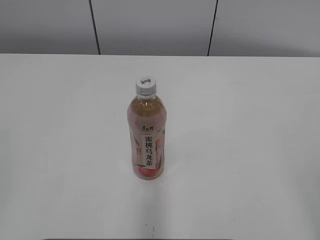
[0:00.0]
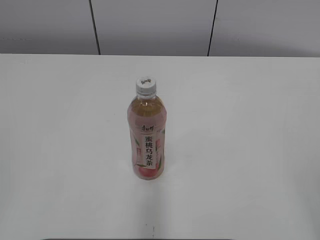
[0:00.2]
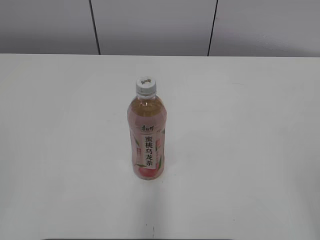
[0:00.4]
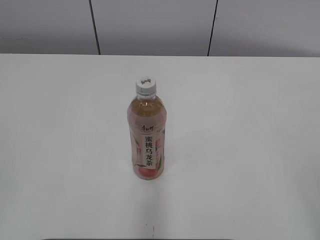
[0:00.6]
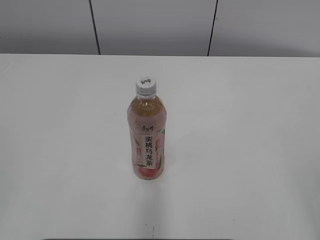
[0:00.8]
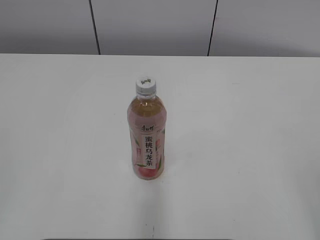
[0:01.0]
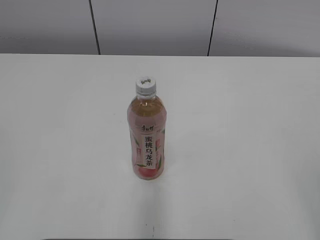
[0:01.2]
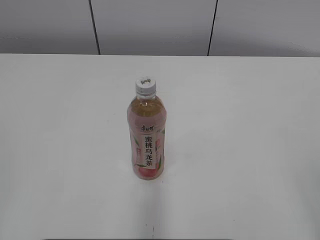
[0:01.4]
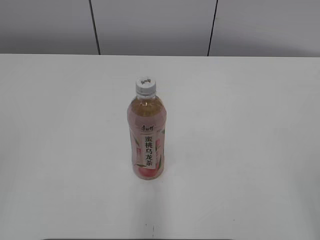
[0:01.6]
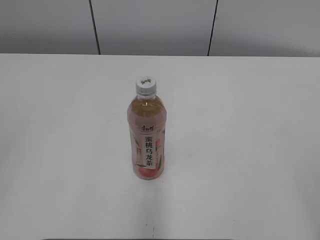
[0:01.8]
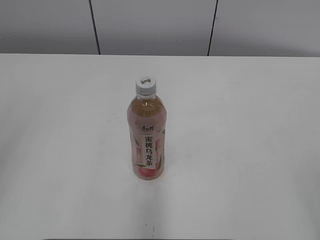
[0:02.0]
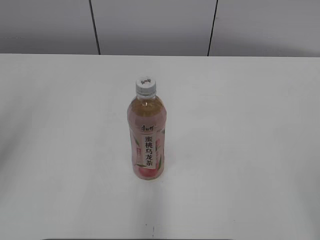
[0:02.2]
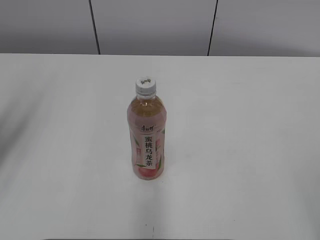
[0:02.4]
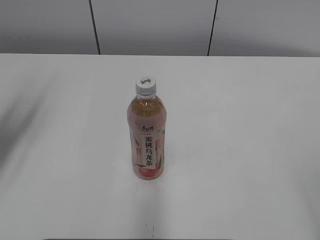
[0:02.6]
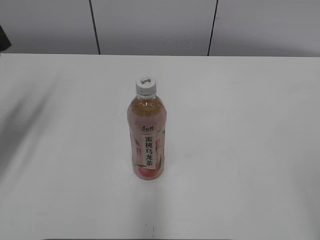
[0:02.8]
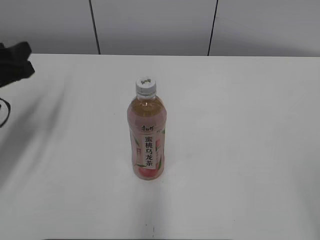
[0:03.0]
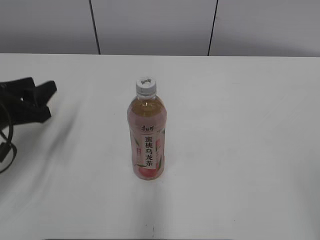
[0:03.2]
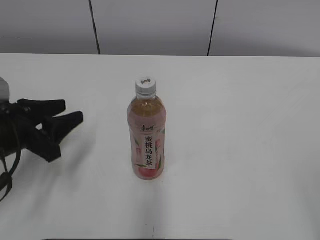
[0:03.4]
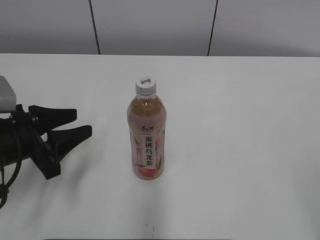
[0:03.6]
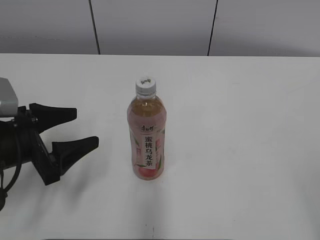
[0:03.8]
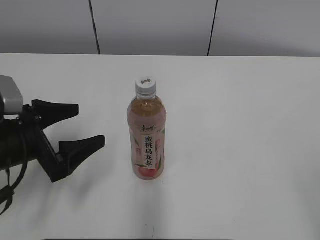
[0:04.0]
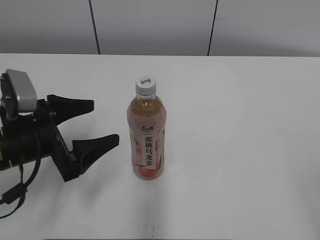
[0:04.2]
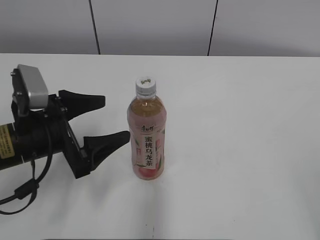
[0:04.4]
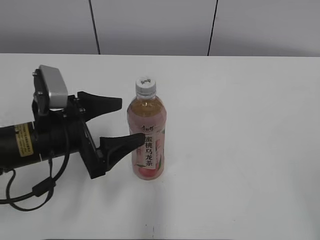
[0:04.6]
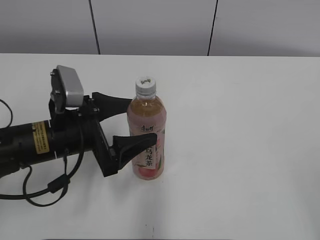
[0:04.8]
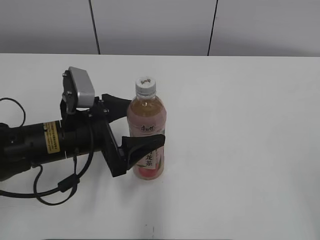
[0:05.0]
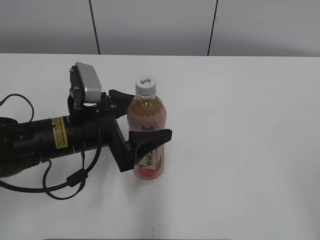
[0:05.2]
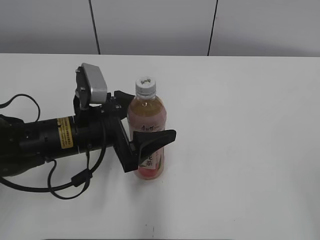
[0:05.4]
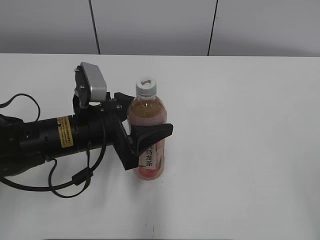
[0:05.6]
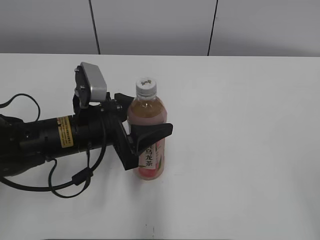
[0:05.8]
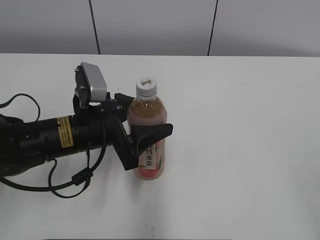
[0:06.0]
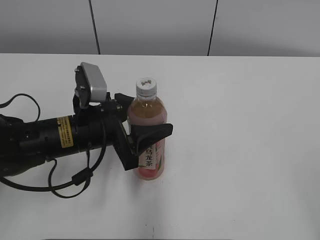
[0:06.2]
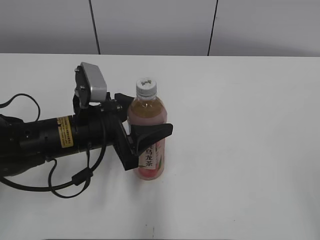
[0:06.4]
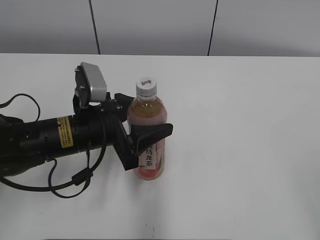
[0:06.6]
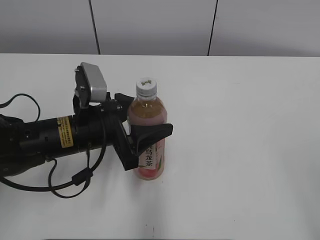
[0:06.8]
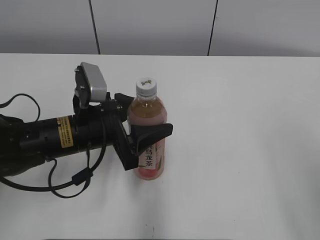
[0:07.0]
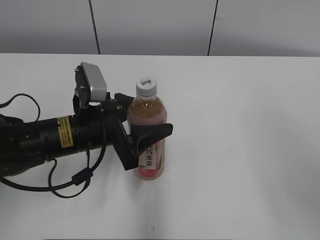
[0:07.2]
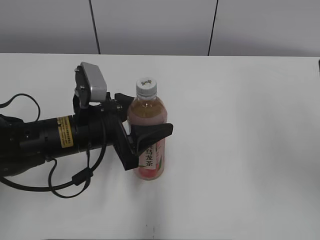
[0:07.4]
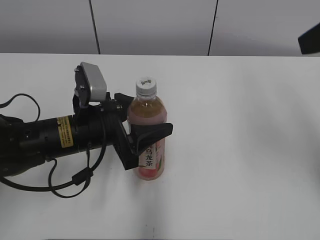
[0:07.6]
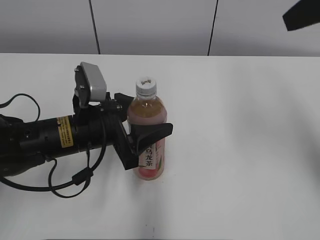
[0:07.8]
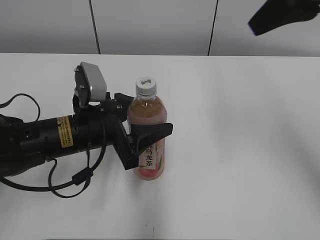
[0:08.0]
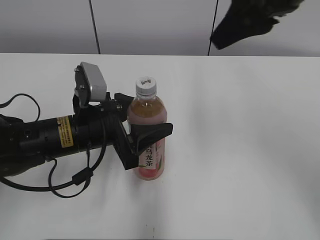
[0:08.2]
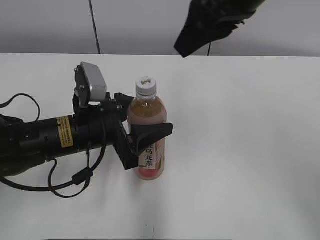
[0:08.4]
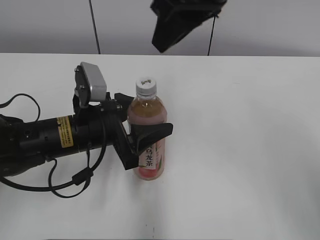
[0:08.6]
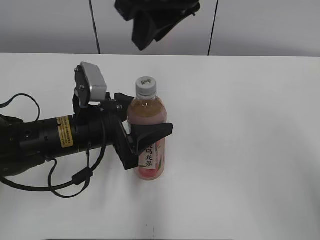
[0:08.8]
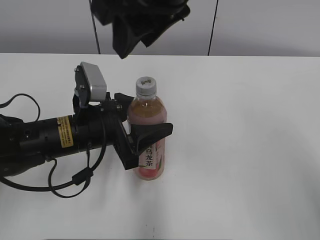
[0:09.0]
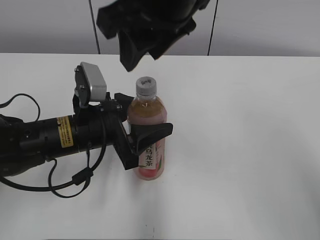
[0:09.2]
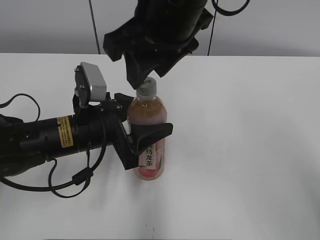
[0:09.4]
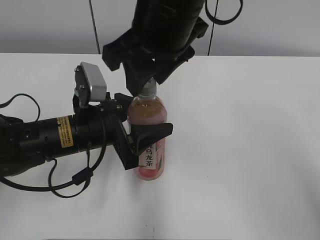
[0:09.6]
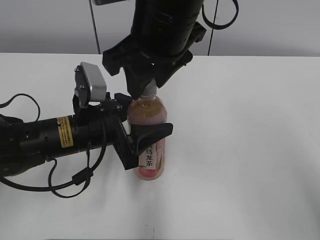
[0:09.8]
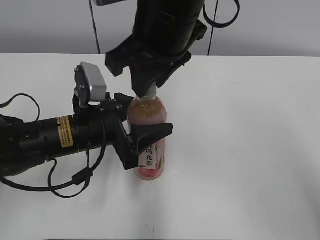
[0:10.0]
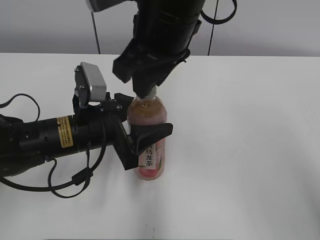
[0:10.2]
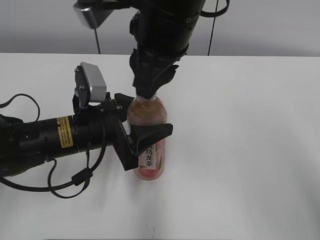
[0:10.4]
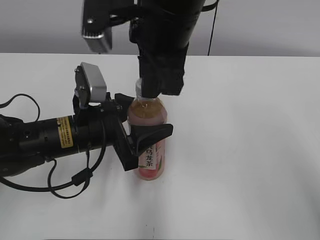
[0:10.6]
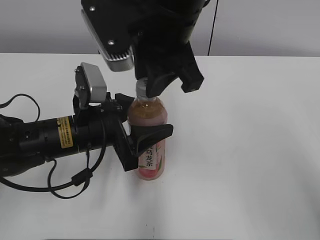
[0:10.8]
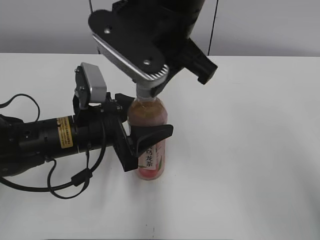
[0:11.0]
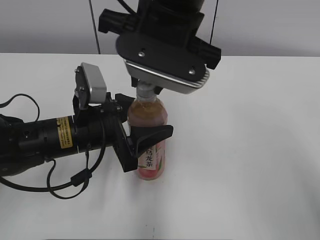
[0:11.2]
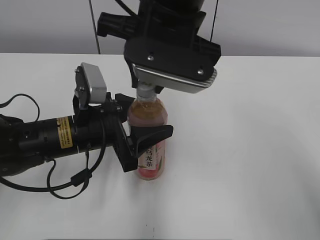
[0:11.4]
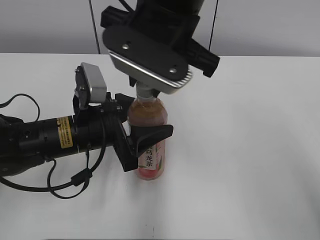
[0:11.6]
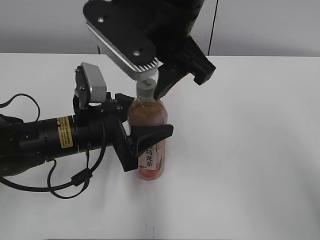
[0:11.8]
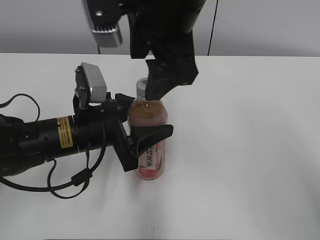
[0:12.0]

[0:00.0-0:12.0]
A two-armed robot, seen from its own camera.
Step, 0:00.0 to 0:05.4: Grab the Peach Oolong Tea with the left hand.
0:01.6 to 0:03.0: The left gripper heads forward, covering approximately 30 cm.
0:03.0 to 0:04.4: The left gripper heads to the right, backward and downward, covering some 15 cm, and opens its fingers.
0:04.4 to 0:06.0: The left gripper heads to the right, covering about 5 cm, and closes.
0:06.0 to 0:07.6: The right gripper travels forward by some 20 cm, and closes its fingers.
0:07.6 to 0:09.0: The right gripper goes approximately 25 cm to the left.
0:09.0 to 0:10.4: The right gripper shifts about 5 cm downward.
0:10.4 to 0:12.0: The right gripper opens up.

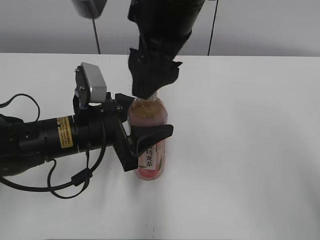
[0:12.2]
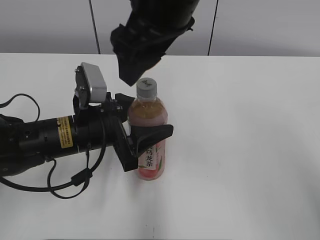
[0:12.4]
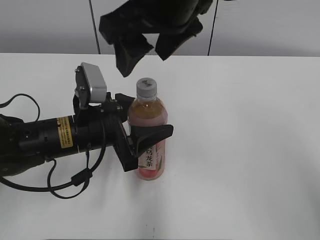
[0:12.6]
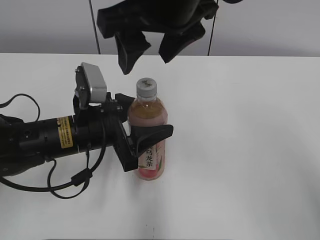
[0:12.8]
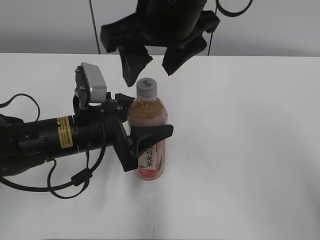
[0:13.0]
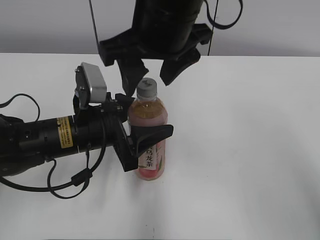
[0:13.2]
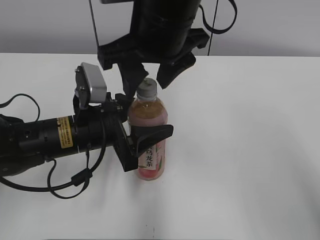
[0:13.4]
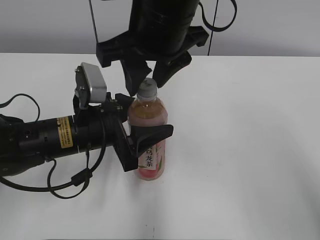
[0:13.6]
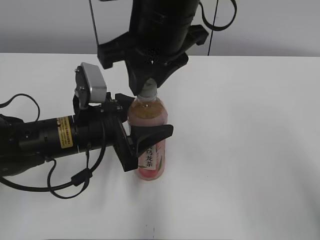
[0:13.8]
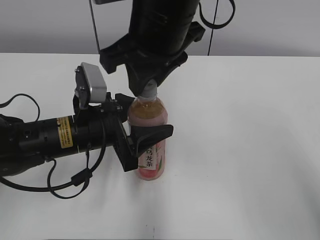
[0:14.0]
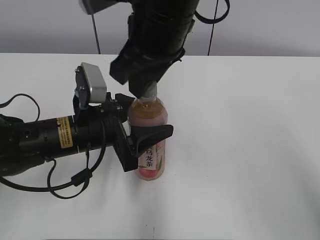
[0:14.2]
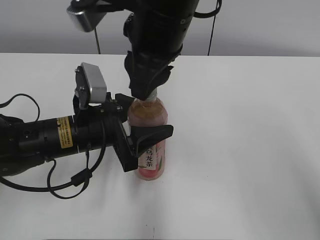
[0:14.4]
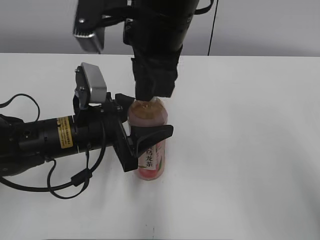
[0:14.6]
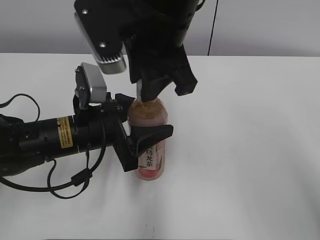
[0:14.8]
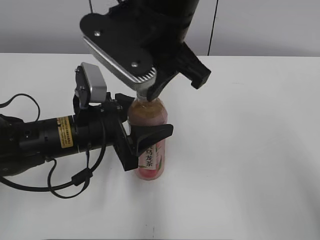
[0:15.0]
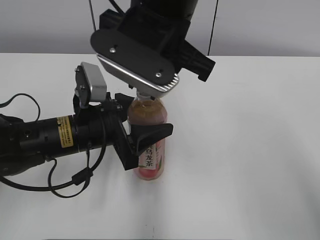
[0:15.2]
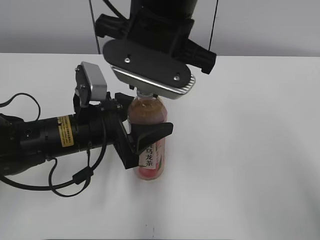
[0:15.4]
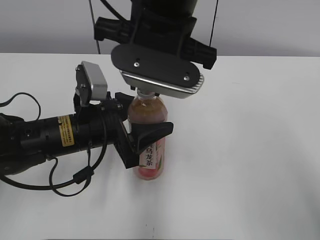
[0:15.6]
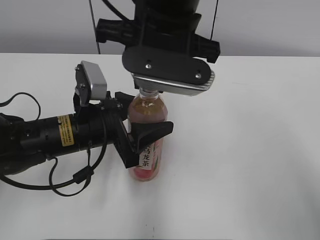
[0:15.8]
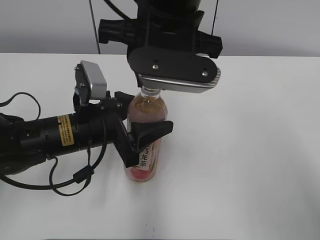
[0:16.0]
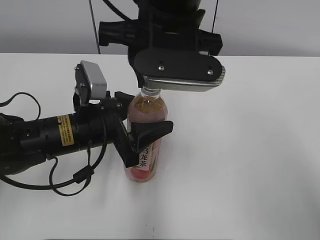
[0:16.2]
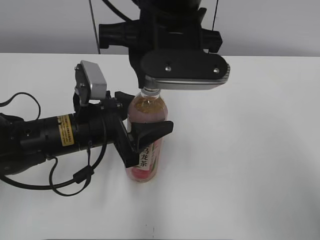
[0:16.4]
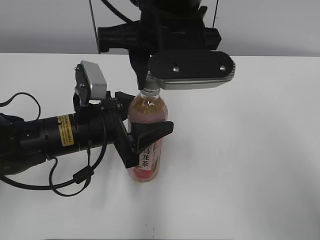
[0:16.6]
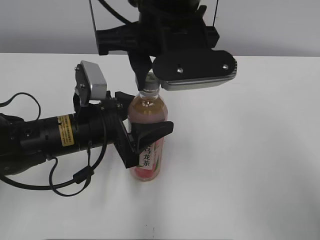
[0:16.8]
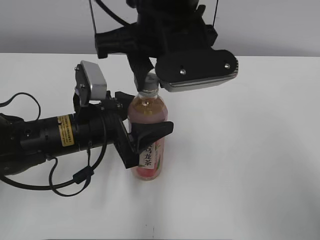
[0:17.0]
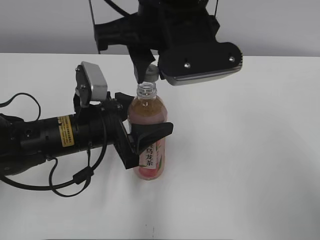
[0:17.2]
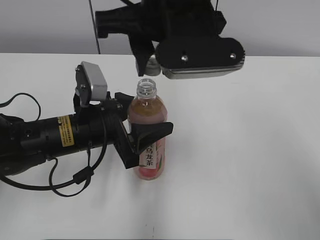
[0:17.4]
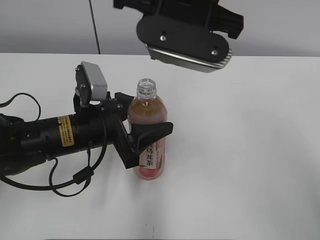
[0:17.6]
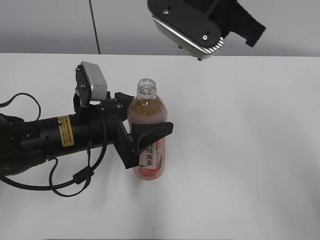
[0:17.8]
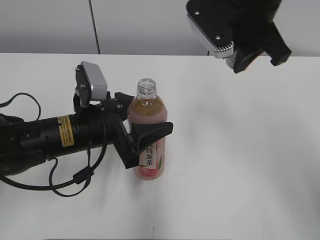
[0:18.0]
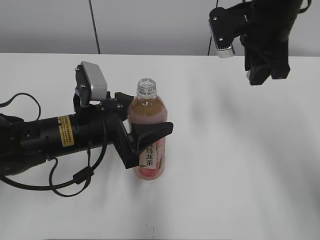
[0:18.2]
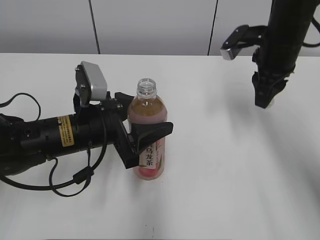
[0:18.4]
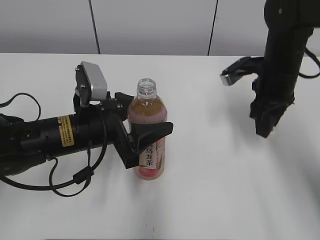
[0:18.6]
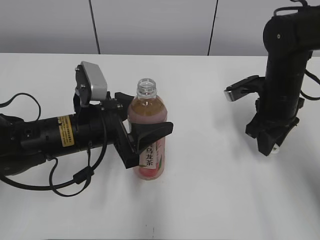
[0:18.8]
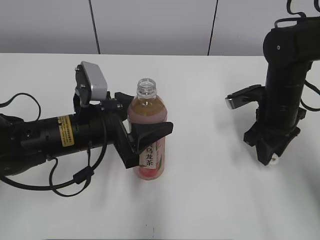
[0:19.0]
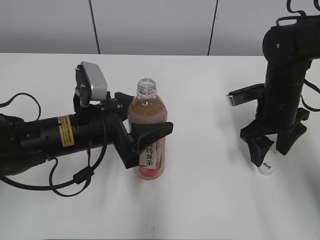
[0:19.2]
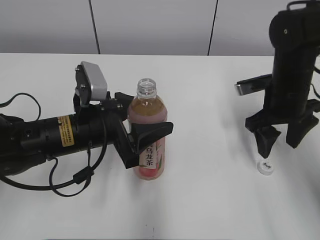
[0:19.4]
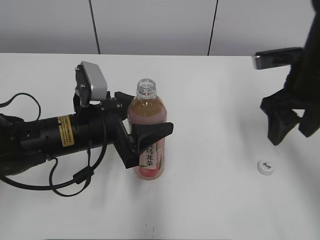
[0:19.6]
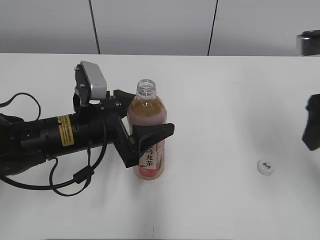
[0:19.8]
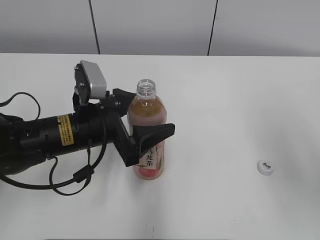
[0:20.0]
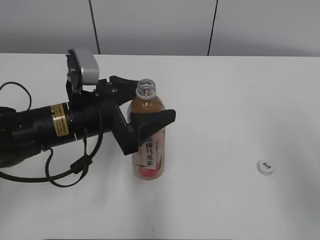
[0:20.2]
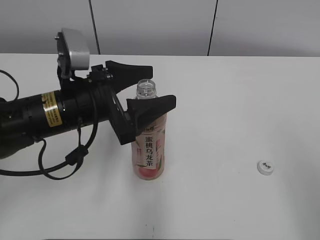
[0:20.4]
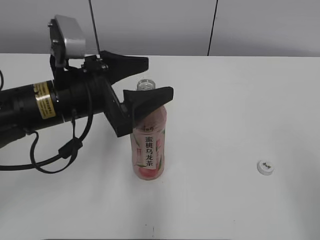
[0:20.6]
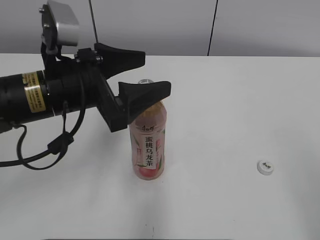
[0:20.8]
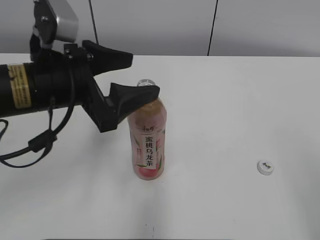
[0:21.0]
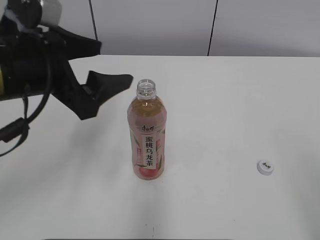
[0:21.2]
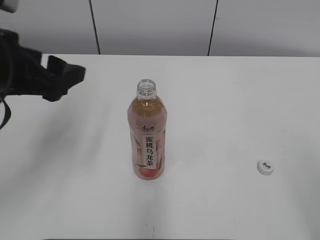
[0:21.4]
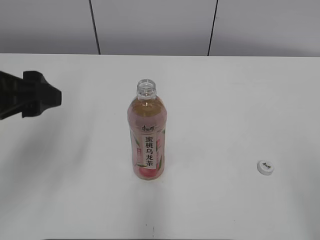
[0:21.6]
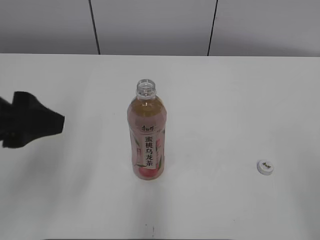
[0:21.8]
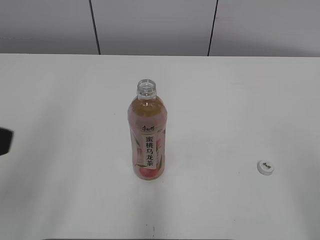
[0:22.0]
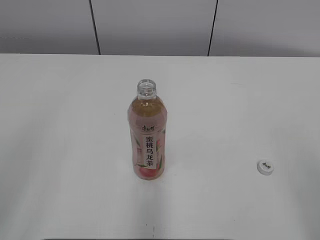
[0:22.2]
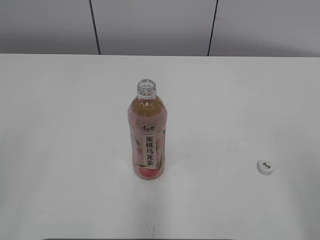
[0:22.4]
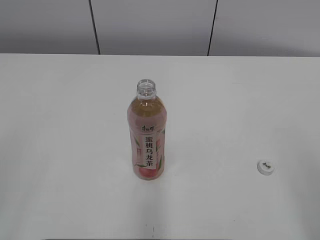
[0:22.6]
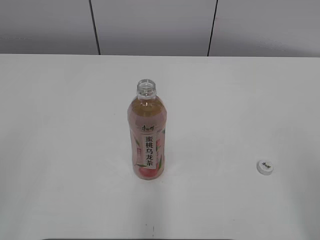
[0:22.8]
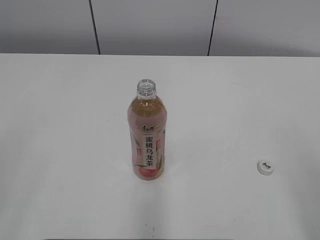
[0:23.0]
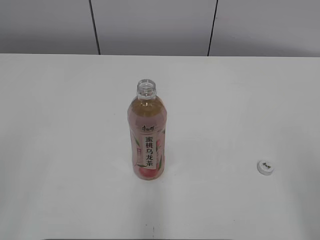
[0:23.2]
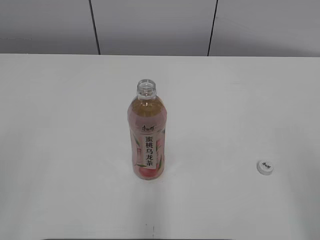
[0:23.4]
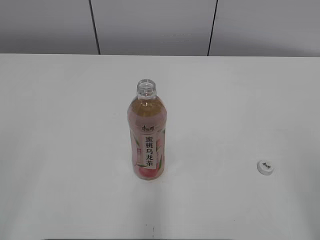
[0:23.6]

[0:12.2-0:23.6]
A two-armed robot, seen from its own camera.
Step, 0:17.2 to 0:19.0: Place the bottle cap on the right.
0:12.2 to 0:13.6: The right gripper closes its fingers.
0:13.6 to 0:15.0: The right gripper closes.
0:16.4 to 0:17.8: The right gripper ends up some 5 cm from where it was.
0:17.8 to 0:19.4: The right gripper is displaced downward and to the right by about 25 cm, and opens up.
0:19.4 to 0:20.8: The right gripper heads backward and upward, covering some 35 cm. The left gripper heads upward, covering some 10 cm, and opens.
0:20.8 to 0:22.2: The left gripper goes roughly 25 cm backward, to the left and upward.
